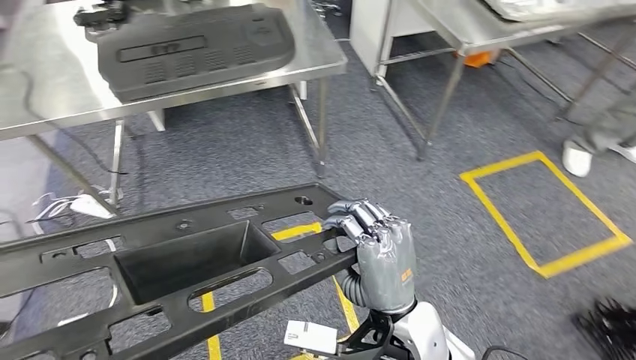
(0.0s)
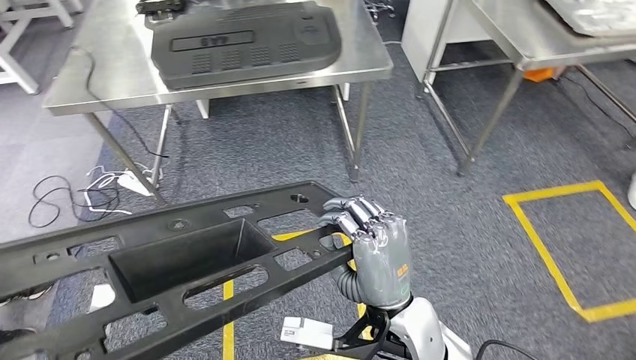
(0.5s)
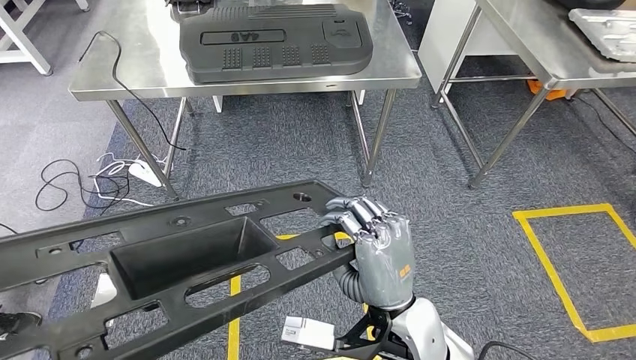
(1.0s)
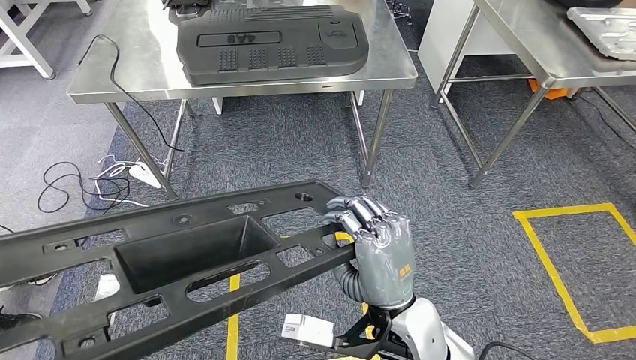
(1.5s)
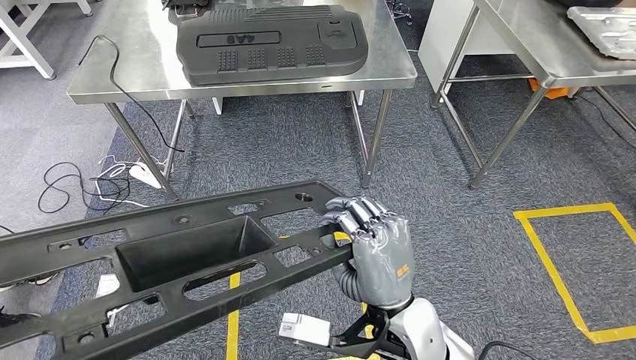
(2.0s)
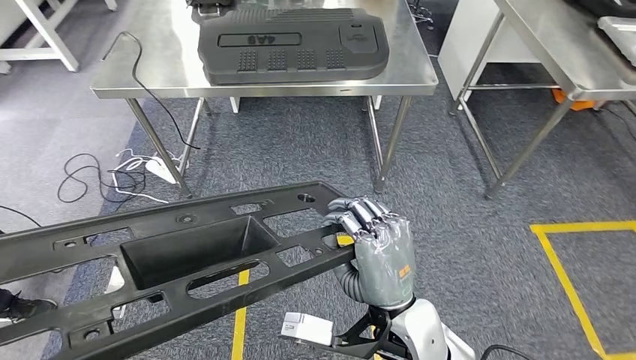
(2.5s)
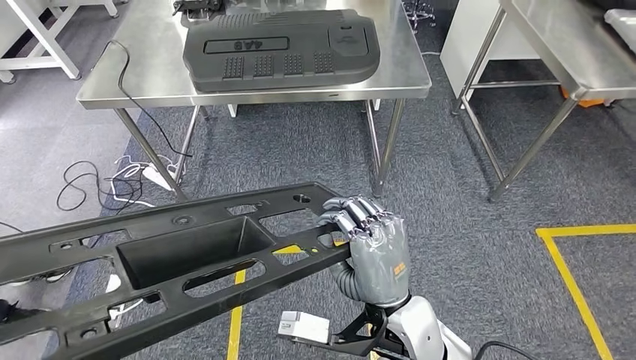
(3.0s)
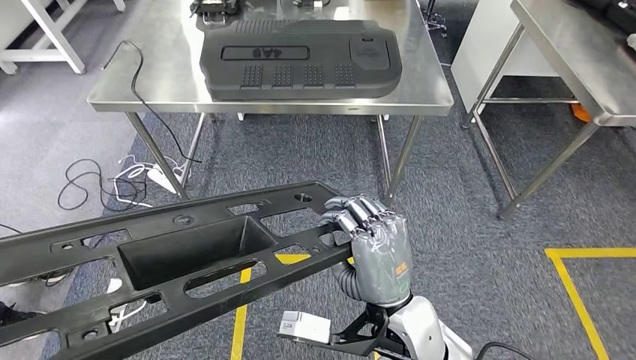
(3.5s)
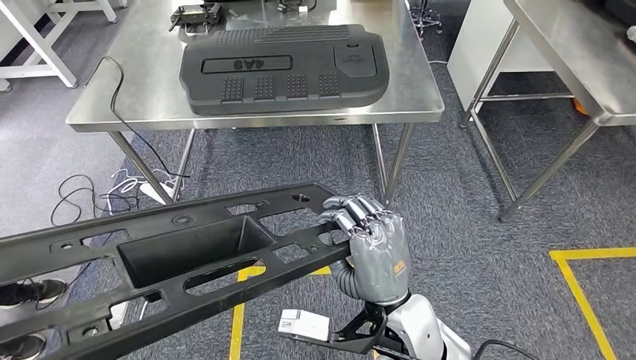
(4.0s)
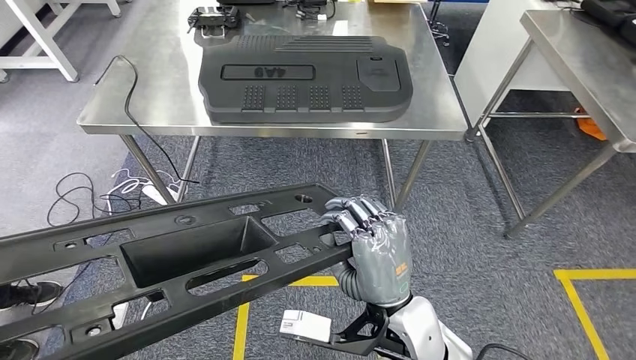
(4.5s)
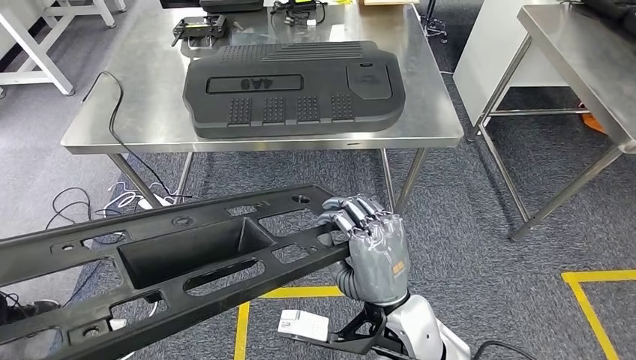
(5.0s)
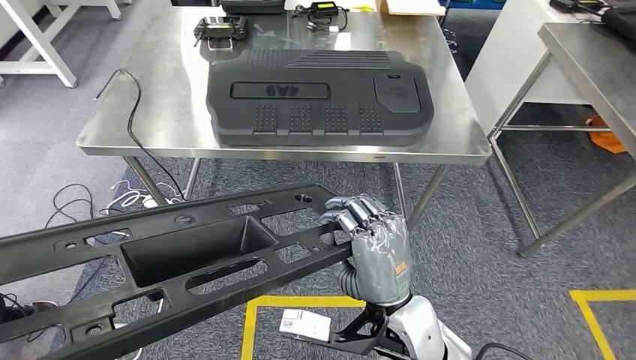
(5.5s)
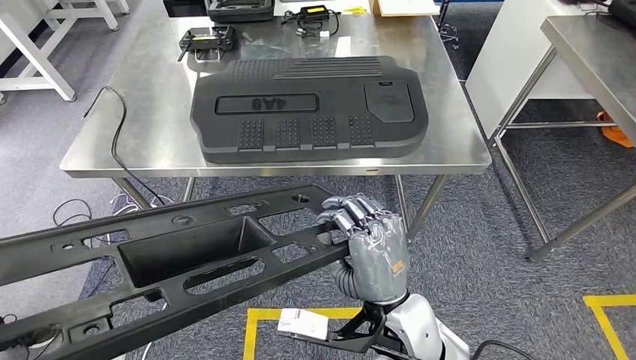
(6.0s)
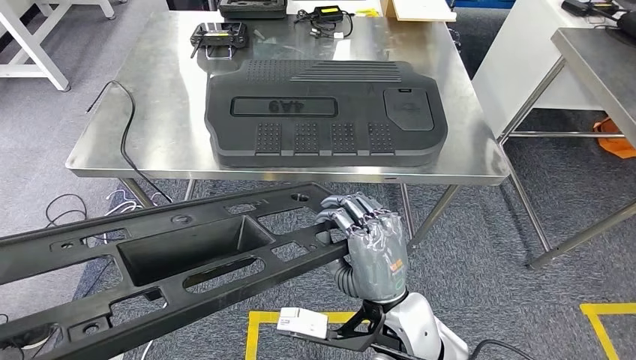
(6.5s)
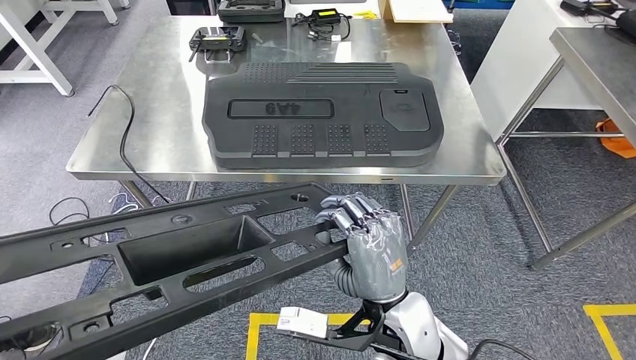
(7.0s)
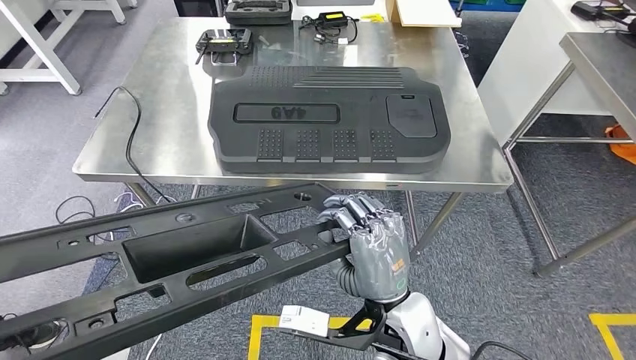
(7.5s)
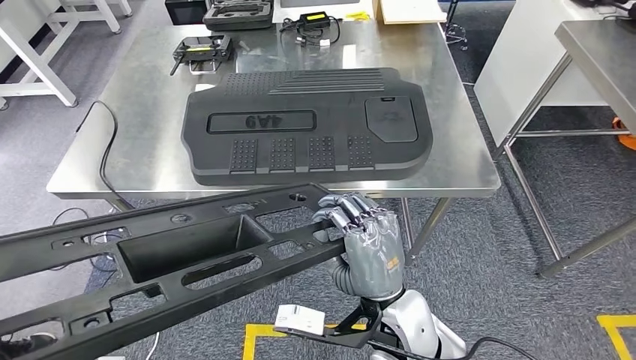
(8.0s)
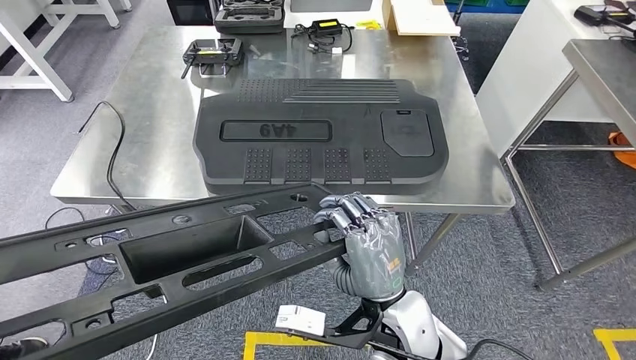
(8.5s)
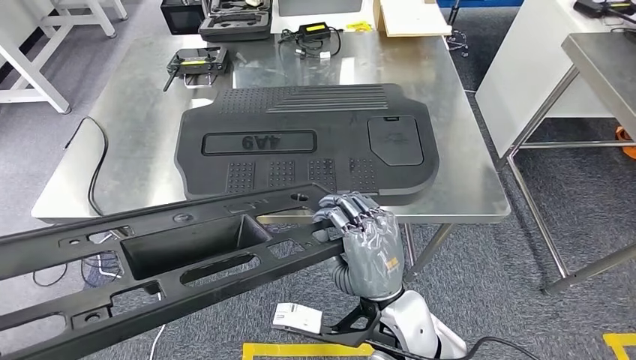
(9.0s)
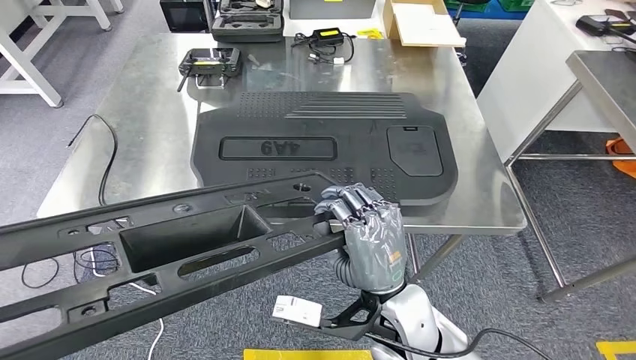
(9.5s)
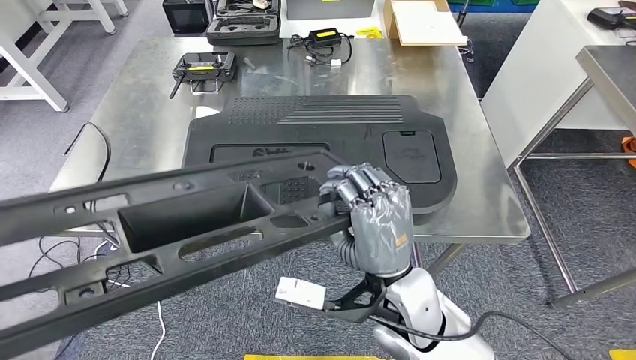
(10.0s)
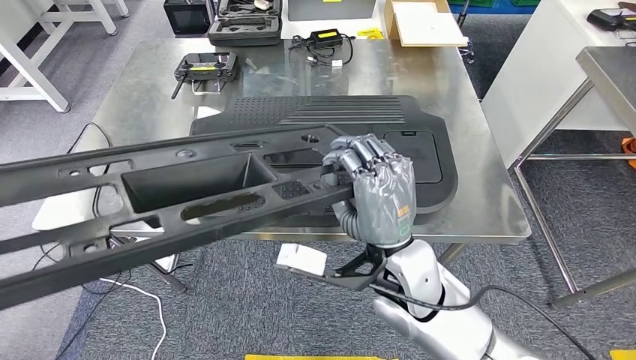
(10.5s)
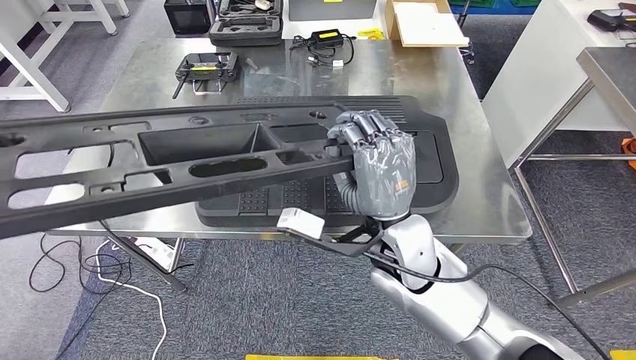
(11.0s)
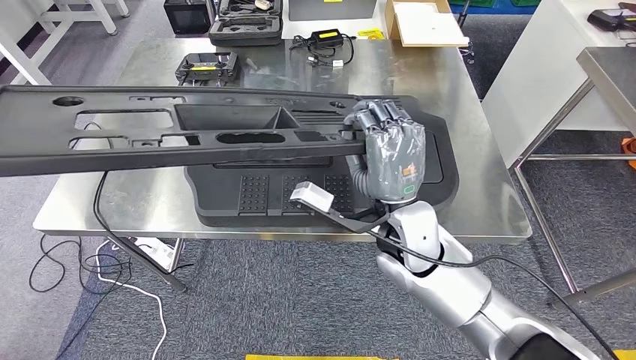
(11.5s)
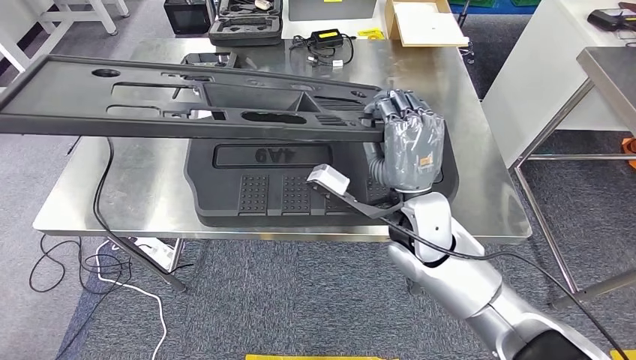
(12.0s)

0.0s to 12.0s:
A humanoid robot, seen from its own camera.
Step, 0.0s to 6.5s: Move the large material to the workbench.

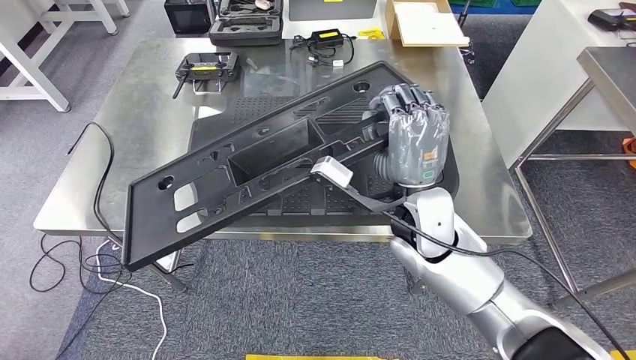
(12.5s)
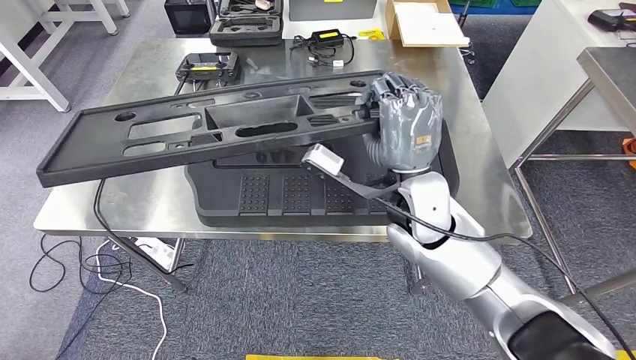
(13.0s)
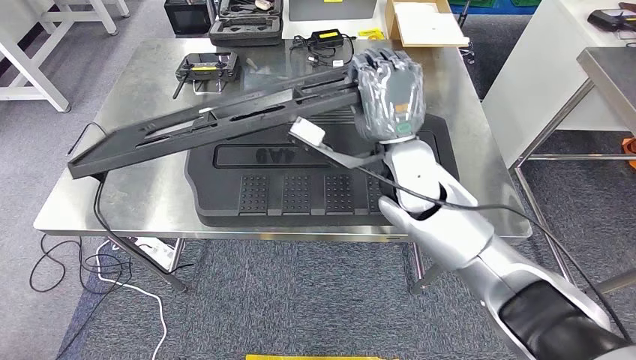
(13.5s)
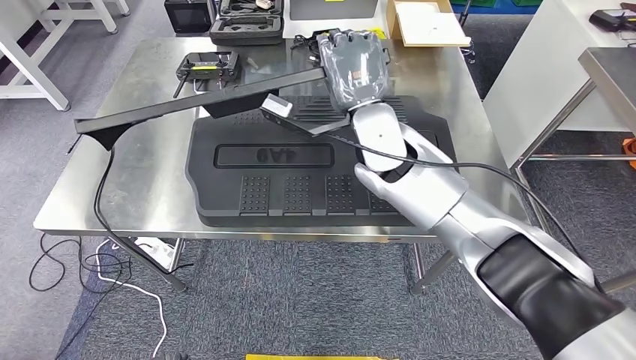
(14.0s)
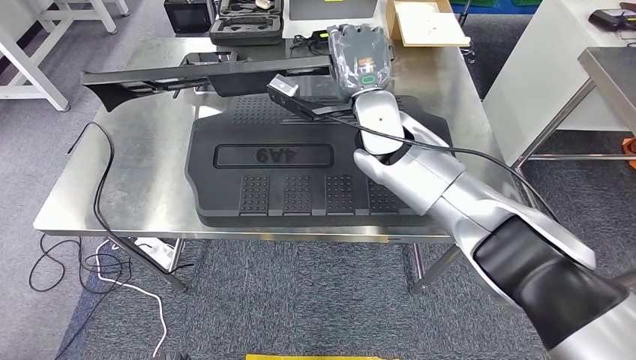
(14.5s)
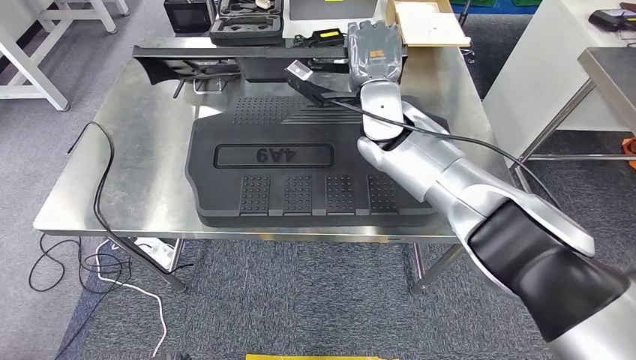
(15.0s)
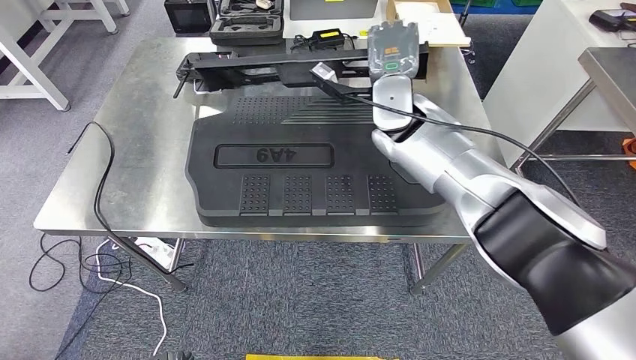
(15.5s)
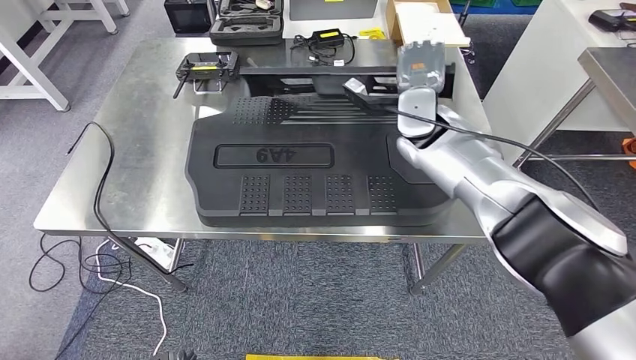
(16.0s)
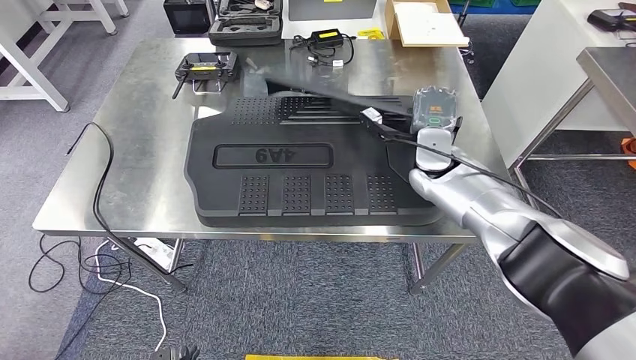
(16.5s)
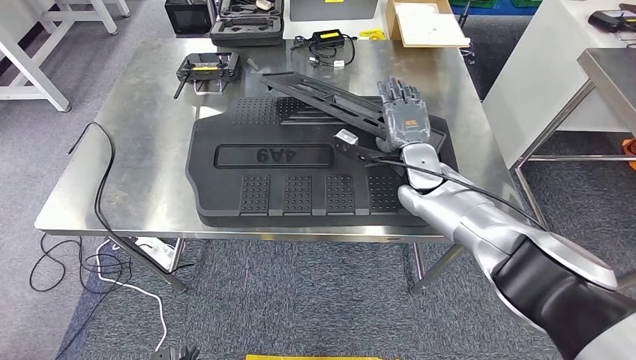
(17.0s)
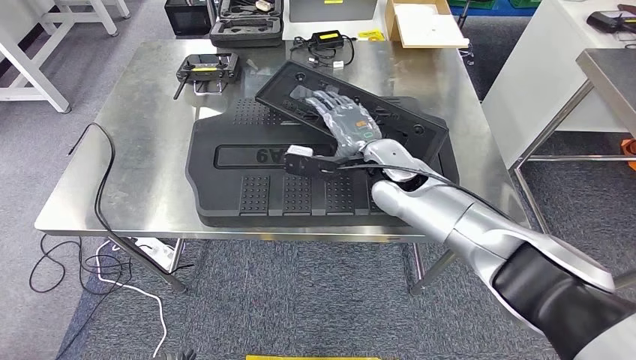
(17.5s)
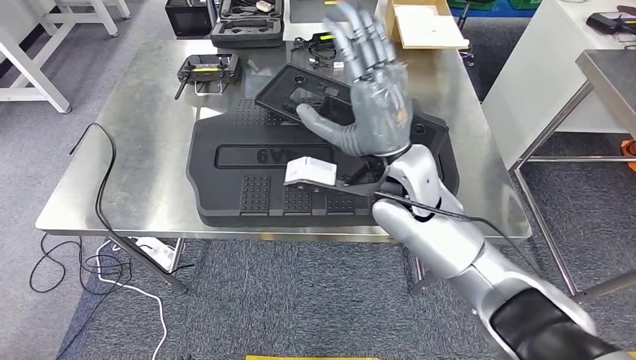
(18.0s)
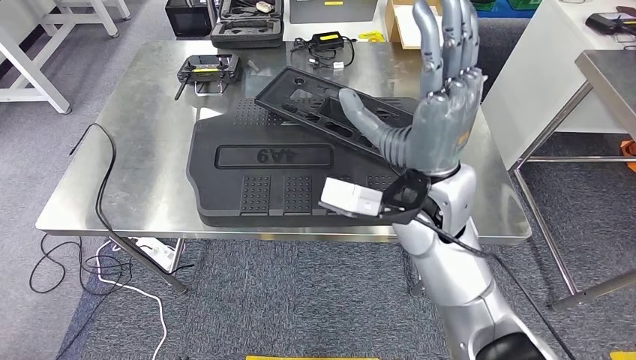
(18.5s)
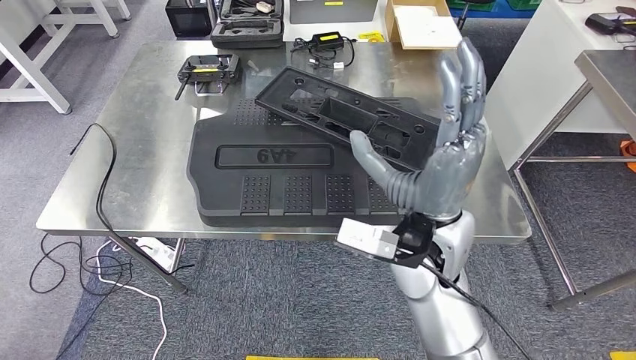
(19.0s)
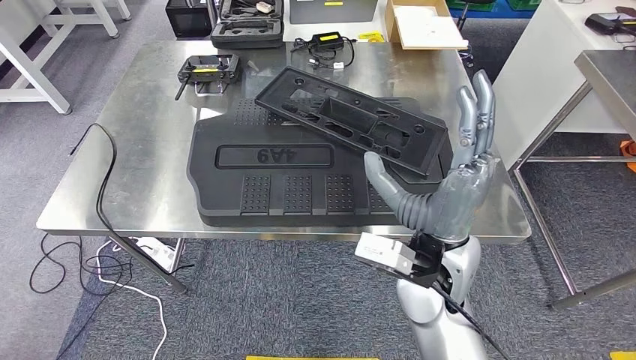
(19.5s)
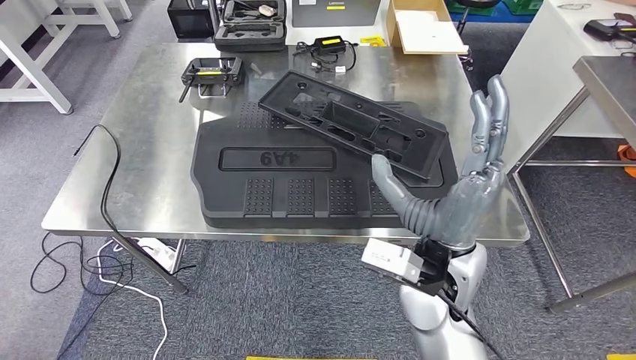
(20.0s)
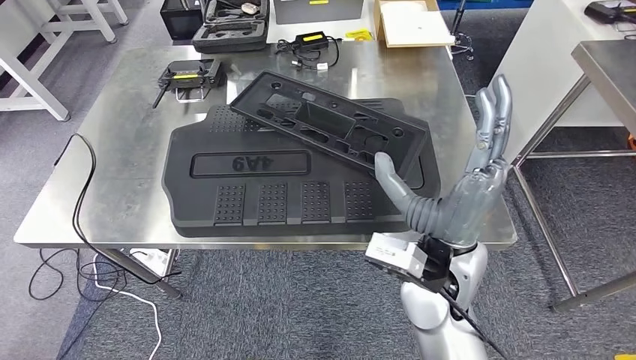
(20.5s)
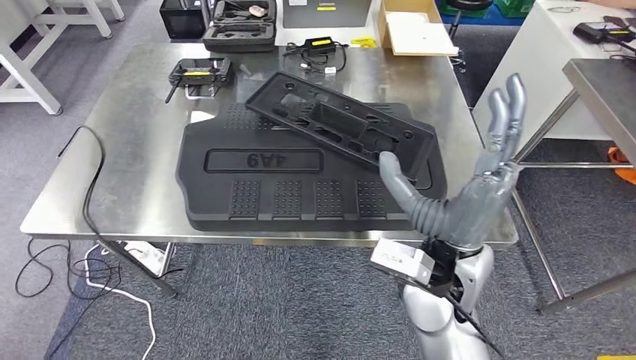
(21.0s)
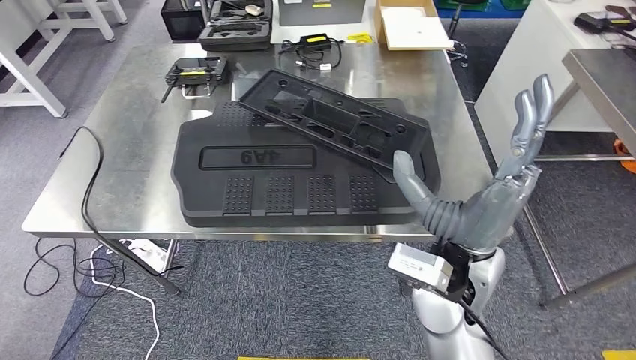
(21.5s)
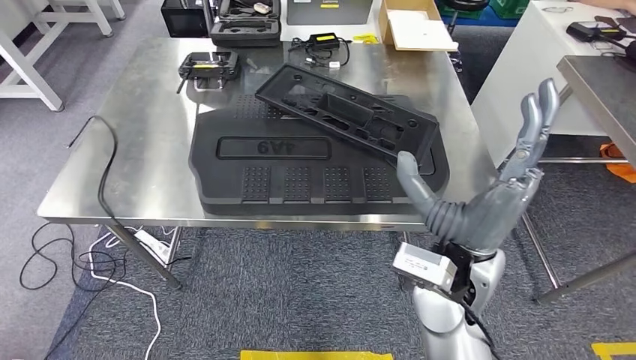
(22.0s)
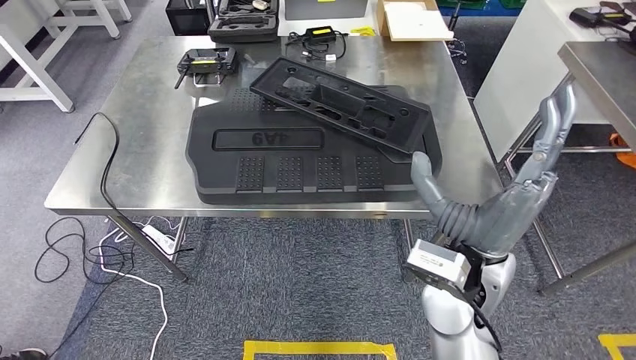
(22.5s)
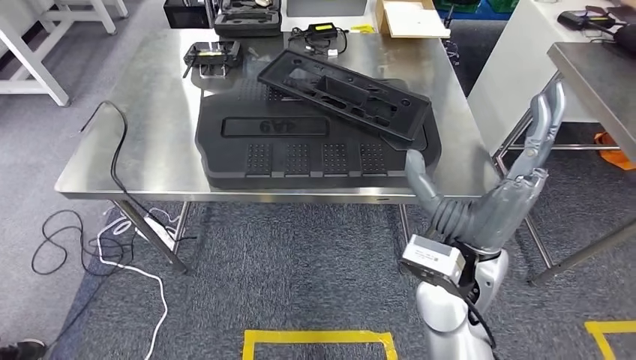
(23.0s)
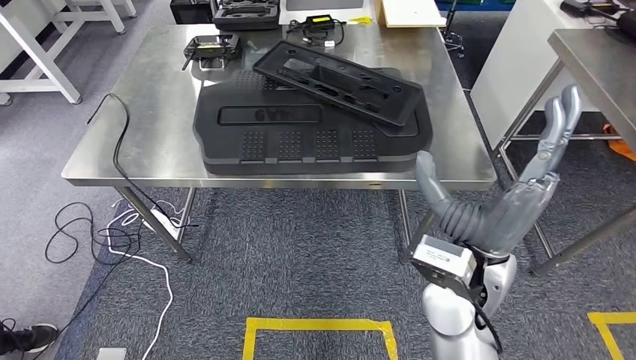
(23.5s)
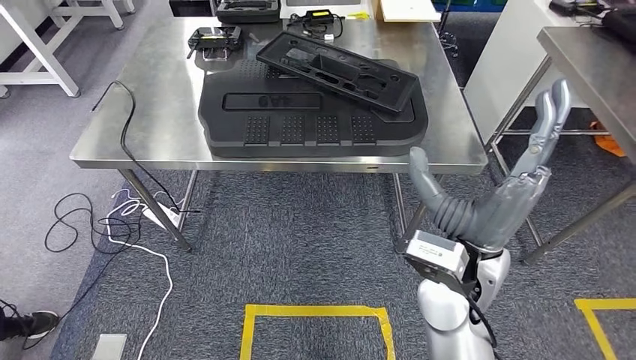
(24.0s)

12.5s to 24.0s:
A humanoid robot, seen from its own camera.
Step, 12.5s to 22.5s: Insert the large material into the corresponding slot on the workbench.
14.5s to 16.5s: The right hand shifts some 15 cm to the right and downward.
